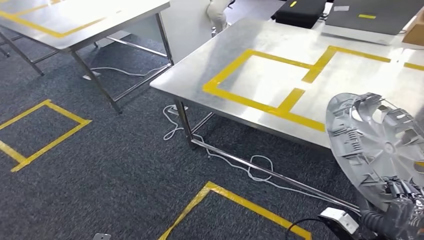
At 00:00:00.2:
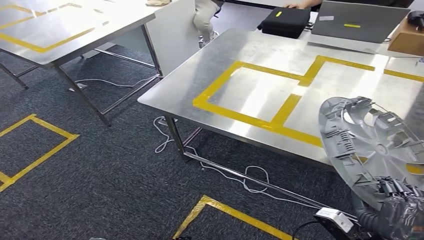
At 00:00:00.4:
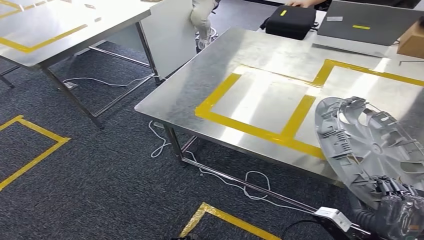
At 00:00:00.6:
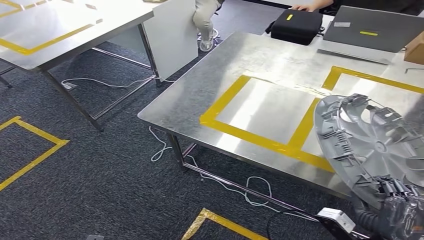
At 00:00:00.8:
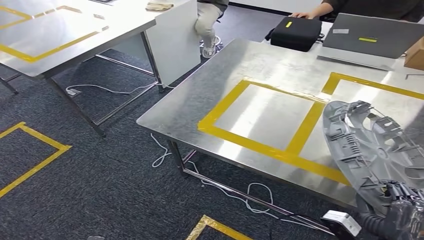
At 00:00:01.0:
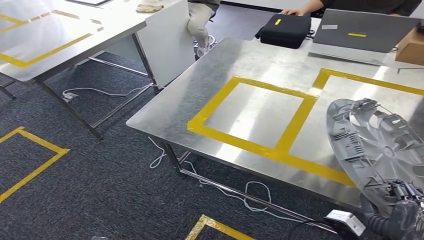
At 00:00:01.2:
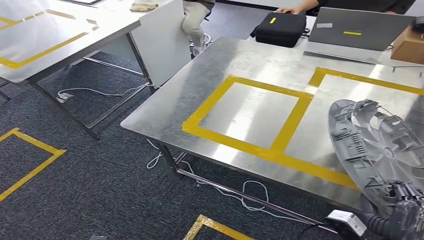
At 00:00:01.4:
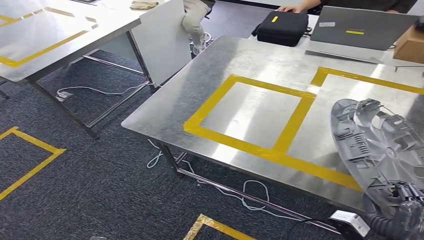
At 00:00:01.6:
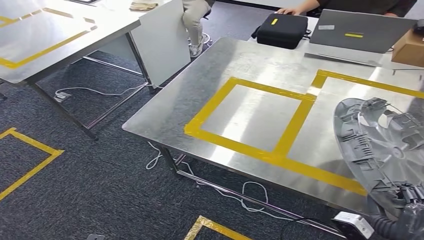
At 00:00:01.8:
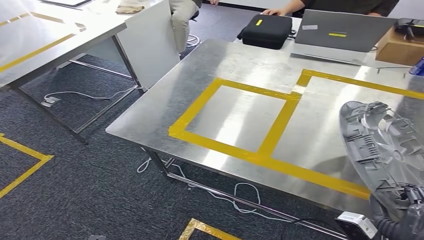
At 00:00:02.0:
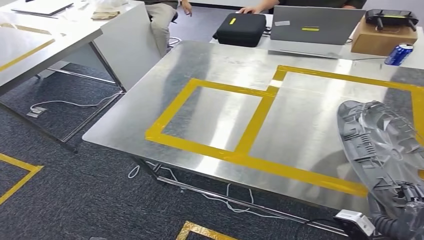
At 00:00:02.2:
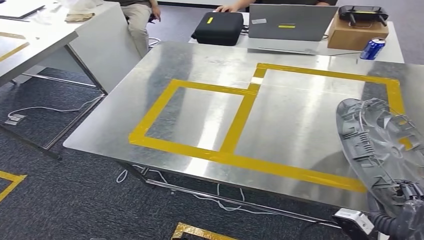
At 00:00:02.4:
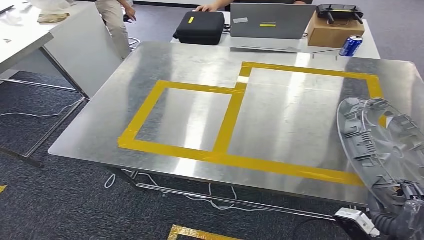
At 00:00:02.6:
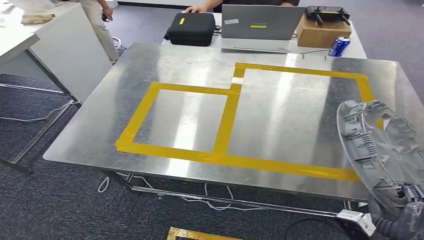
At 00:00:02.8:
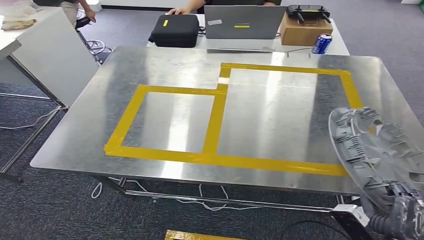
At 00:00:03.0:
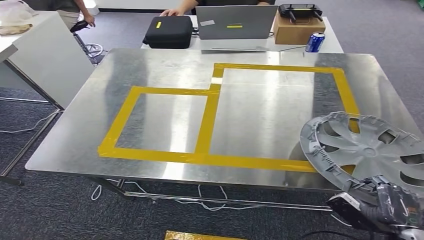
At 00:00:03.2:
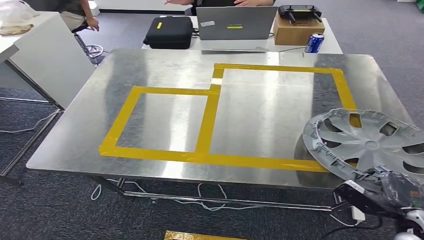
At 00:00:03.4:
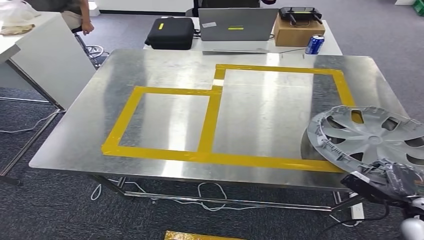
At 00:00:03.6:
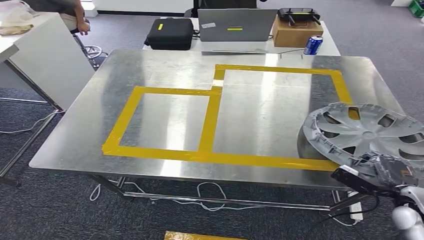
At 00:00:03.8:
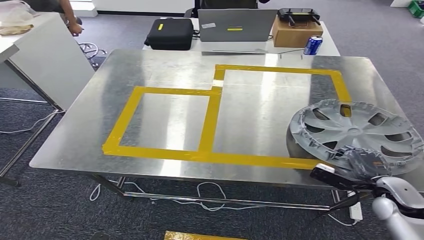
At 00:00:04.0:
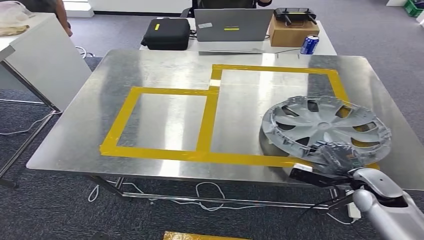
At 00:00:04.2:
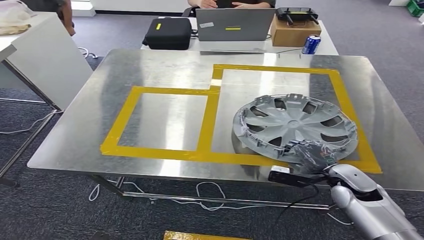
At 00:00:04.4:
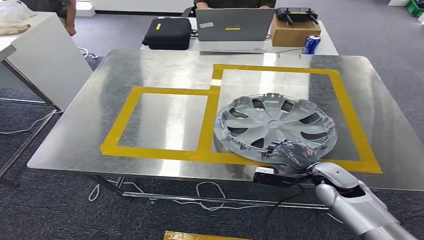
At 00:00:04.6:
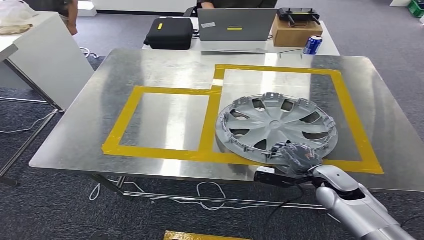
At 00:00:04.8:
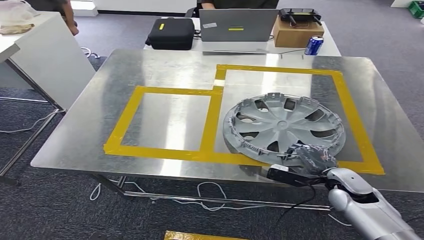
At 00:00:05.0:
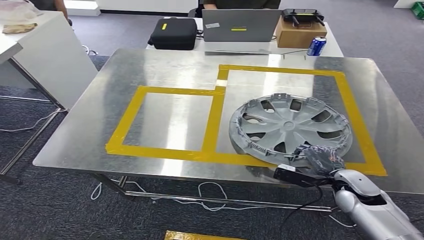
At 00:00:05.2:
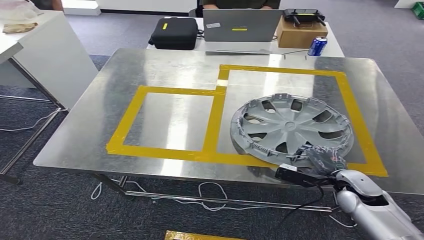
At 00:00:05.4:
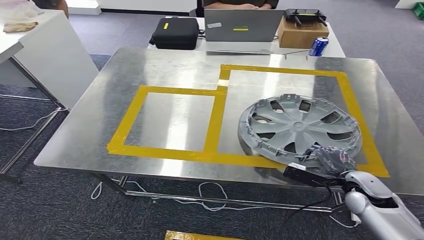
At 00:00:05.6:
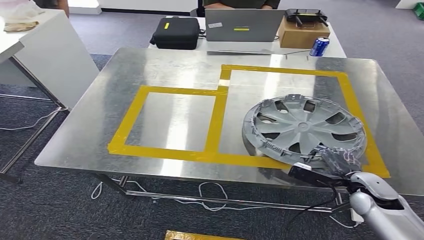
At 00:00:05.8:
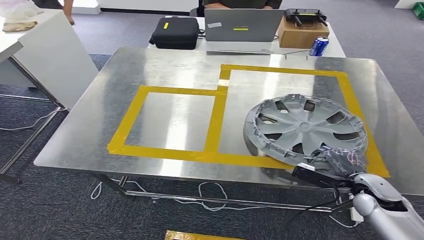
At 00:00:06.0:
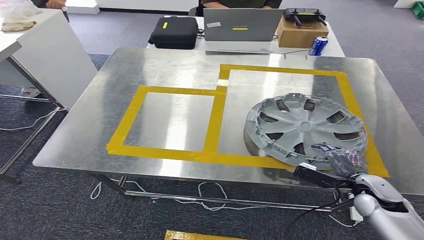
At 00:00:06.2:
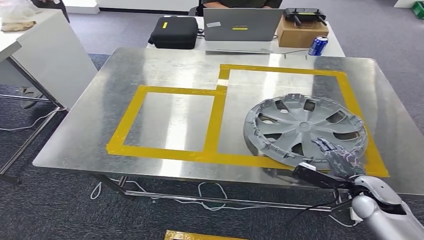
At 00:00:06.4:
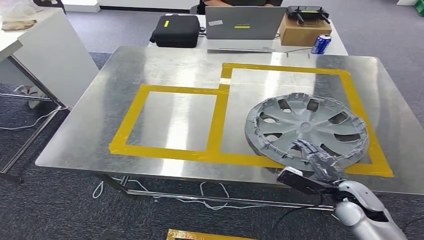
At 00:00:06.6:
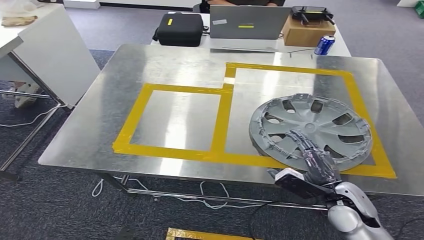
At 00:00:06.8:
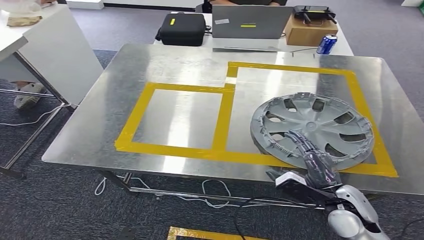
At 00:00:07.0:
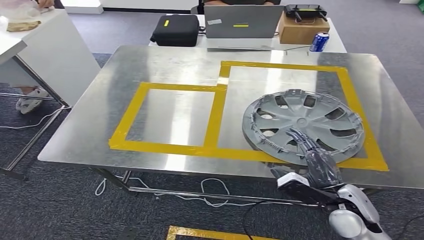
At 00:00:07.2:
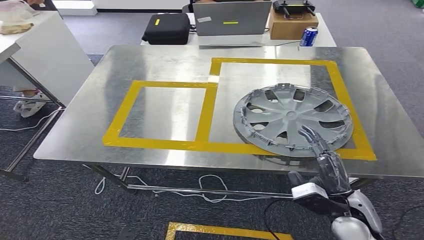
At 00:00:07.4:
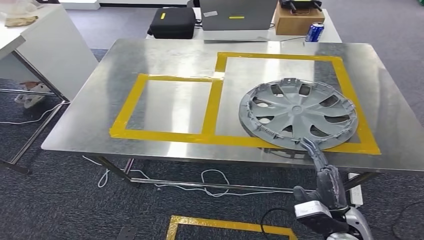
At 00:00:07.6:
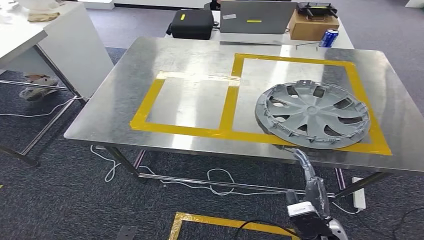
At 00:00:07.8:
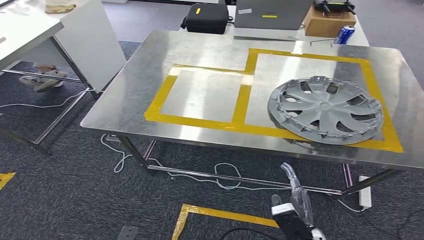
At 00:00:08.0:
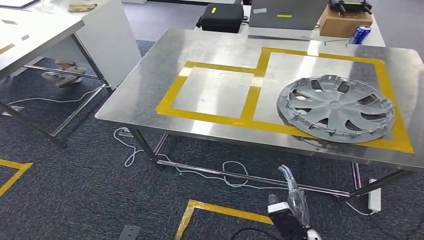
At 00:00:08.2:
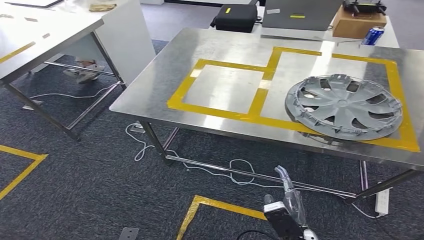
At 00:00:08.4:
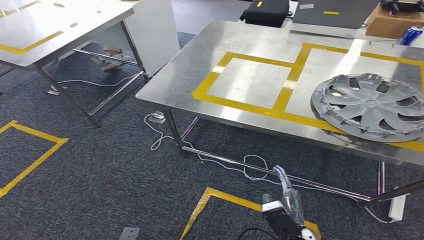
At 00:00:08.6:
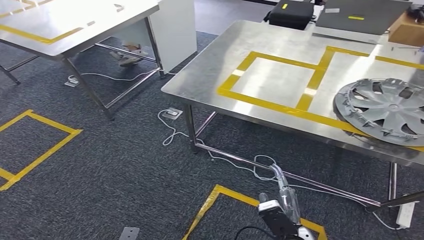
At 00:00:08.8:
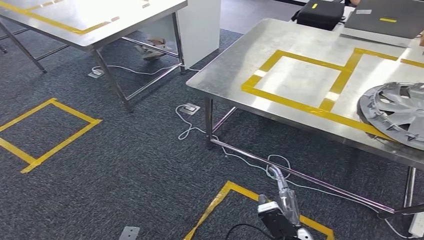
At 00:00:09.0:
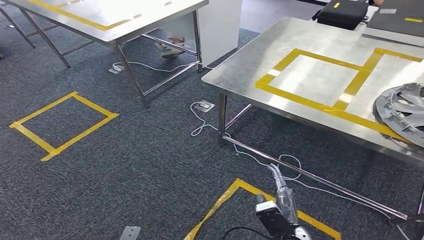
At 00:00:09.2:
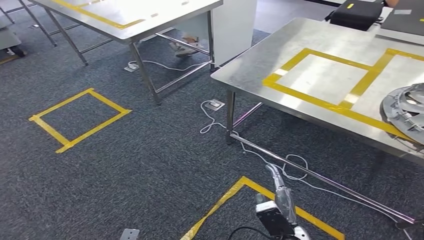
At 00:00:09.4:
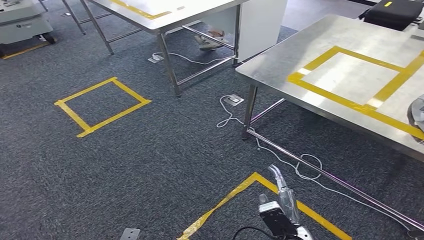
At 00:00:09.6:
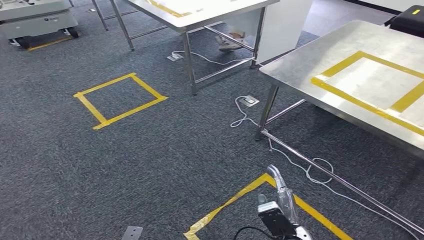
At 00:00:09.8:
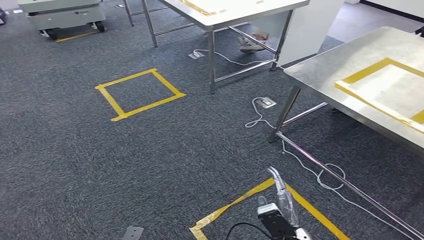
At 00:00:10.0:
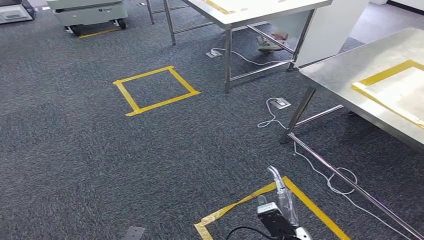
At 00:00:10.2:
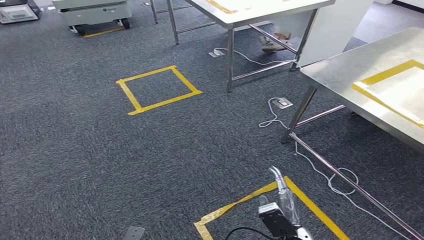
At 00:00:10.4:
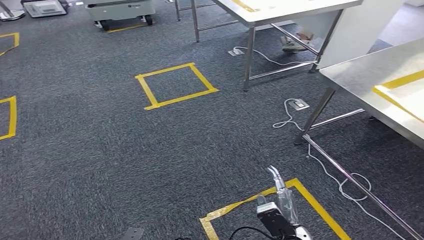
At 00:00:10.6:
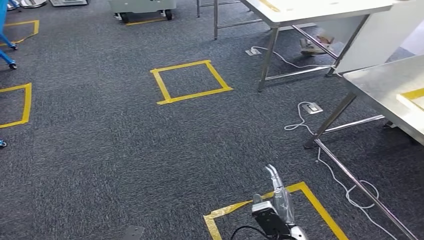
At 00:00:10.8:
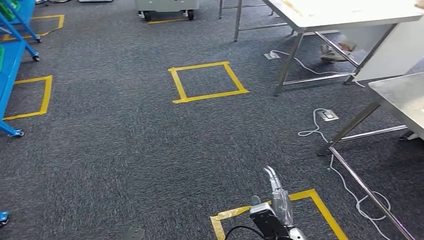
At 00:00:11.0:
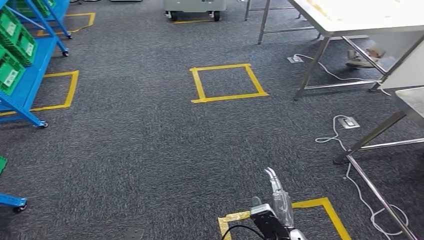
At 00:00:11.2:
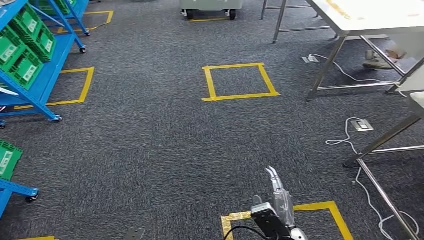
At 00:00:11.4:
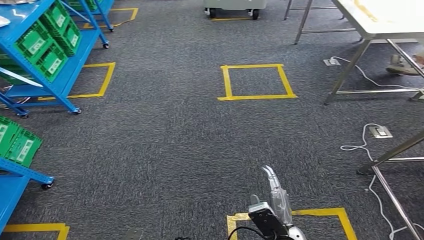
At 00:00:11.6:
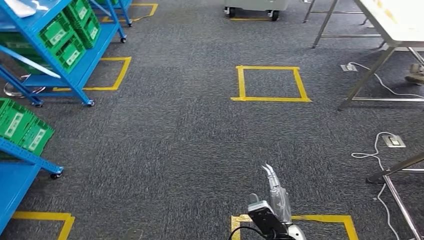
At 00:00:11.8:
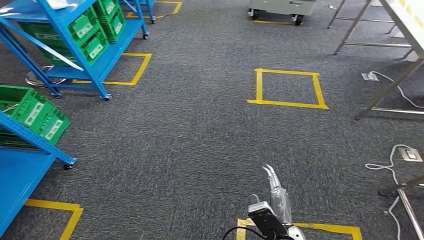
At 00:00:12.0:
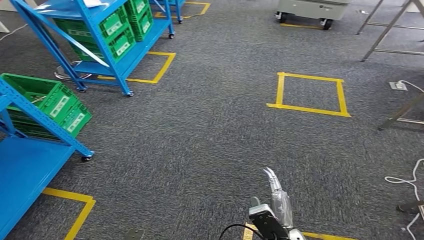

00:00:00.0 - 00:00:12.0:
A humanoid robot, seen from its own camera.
Step, 00:00:00.0 - 00:00:07.6: Insert the small component into the corresponding slot on the workbench.

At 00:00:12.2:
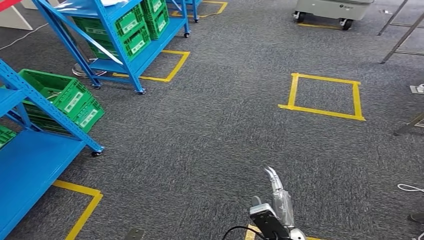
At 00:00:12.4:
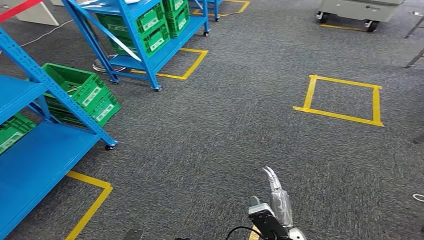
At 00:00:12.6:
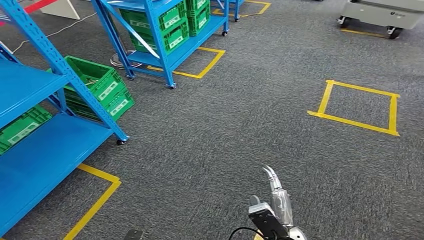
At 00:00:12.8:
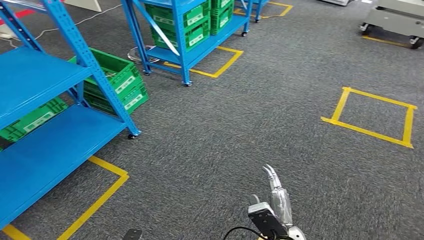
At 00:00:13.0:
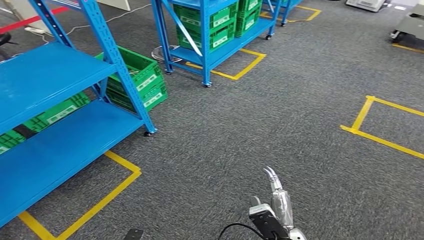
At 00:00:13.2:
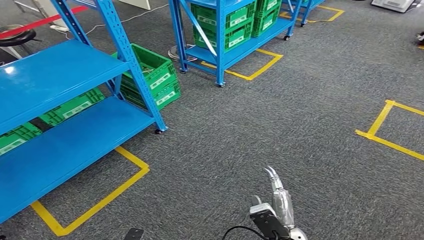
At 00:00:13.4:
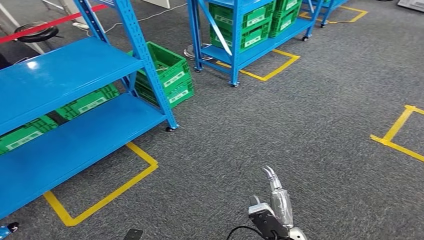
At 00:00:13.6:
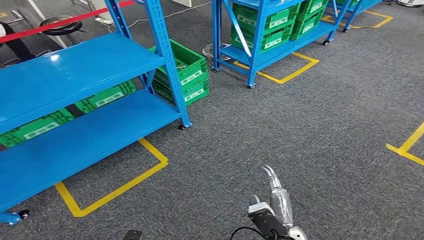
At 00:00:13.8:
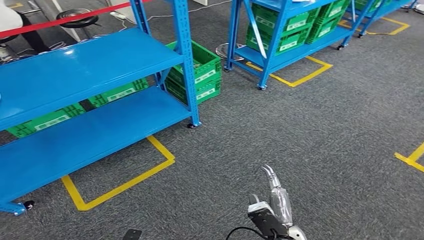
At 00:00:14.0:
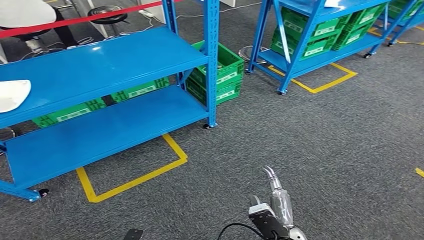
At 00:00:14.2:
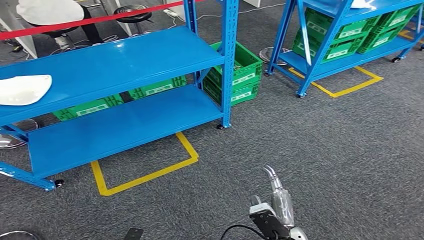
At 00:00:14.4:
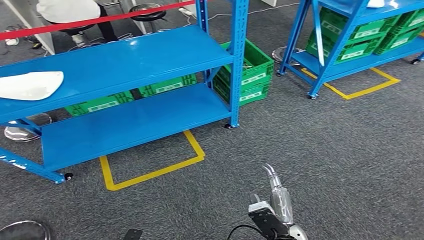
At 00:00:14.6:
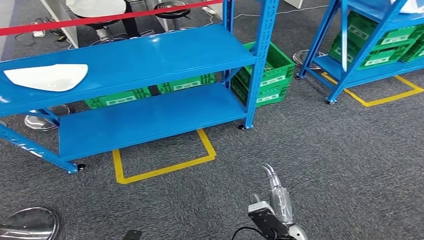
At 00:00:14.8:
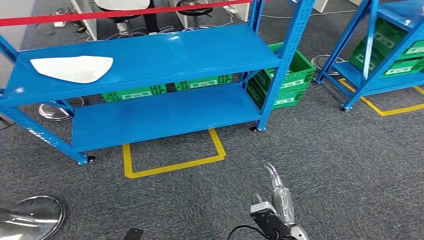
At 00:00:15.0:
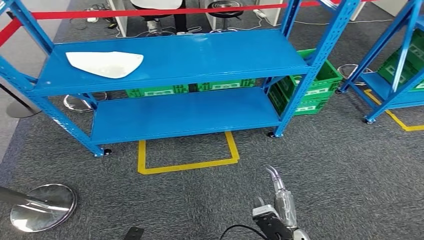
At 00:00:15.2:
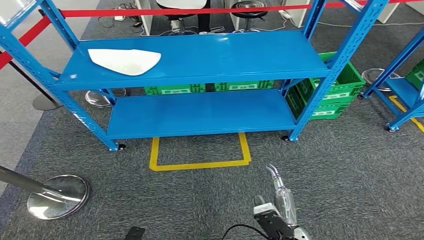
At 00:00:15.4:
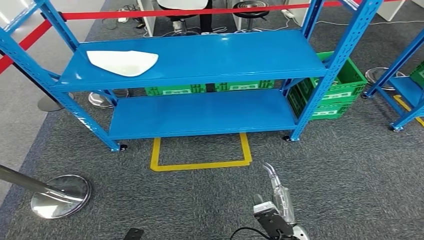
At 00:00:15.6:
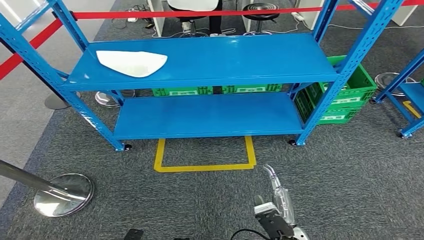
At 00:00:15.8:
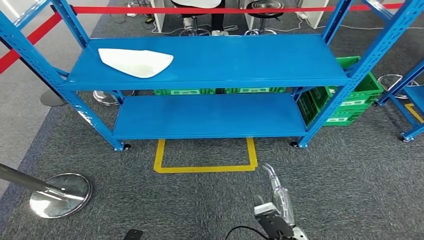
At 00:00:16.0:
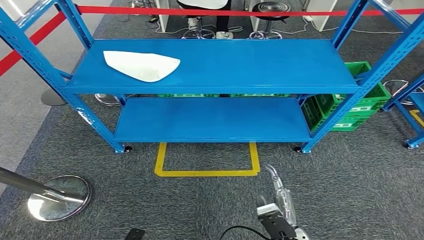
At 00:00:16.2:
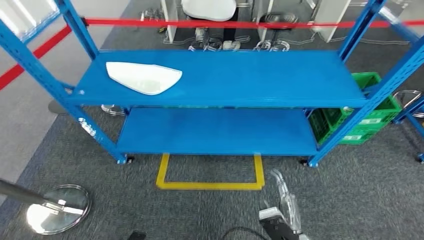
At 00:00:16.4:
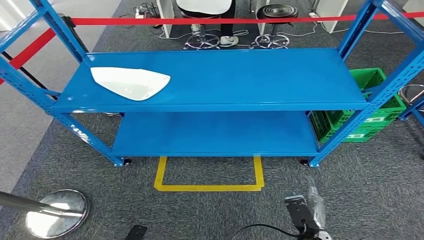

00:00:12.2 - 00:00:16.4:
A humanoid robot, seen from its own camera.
Step, 00:00:12.2 - 00:00:16.4: Return to the initial position at the workbench.
